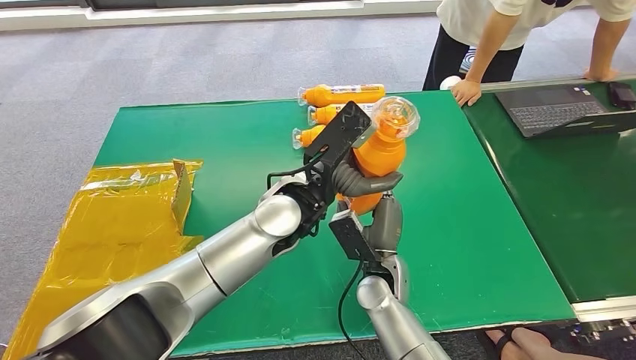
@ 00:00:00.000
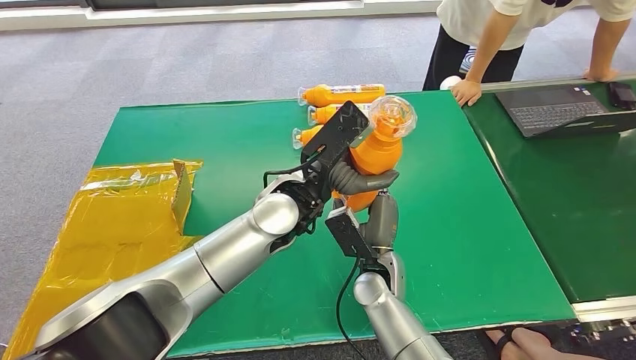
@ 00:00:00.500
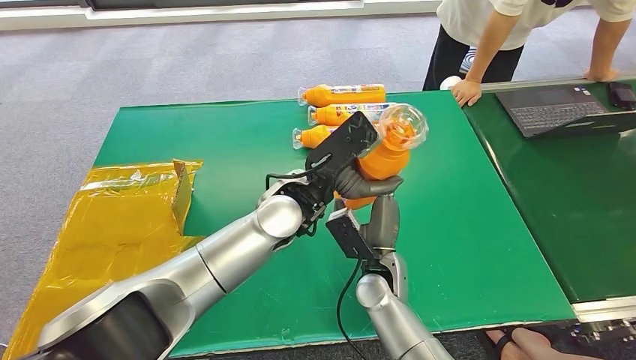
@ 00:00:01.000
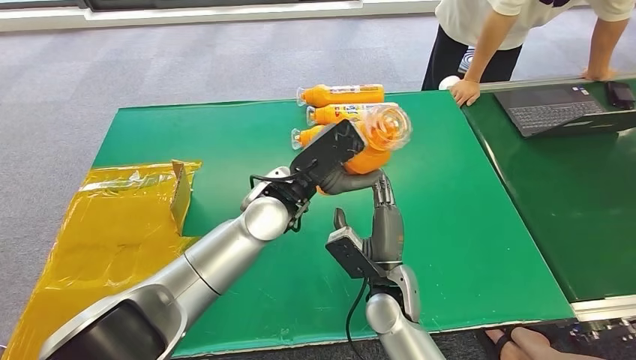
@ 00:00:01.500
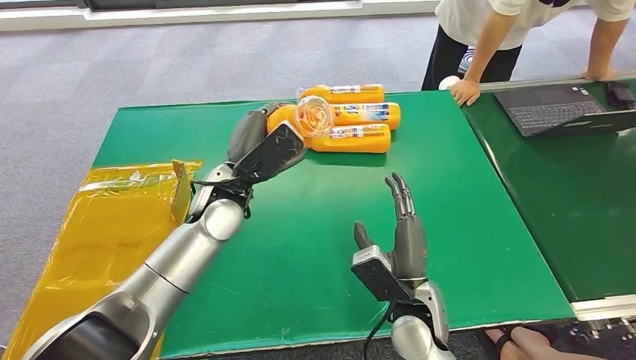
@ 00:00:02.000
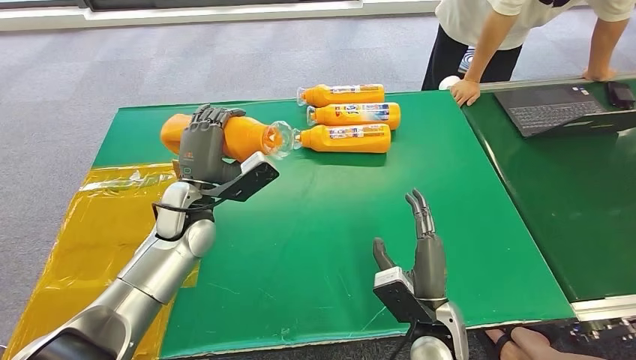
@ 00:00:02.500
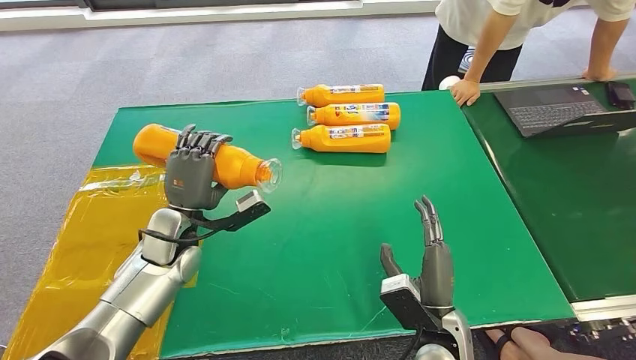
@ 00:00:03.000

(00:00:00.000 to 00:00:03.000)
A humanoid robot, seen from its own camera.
Step, 00:00:00.000 - 00:00:03.000: Turn the bottle to the front side.
00:00:01.500 - 00:00:03.000: The left hand heads to the left and downward, covering roughly 20 cm. Meanwhile the right hand heads backward and to the right, covering approximately 10 cm.
